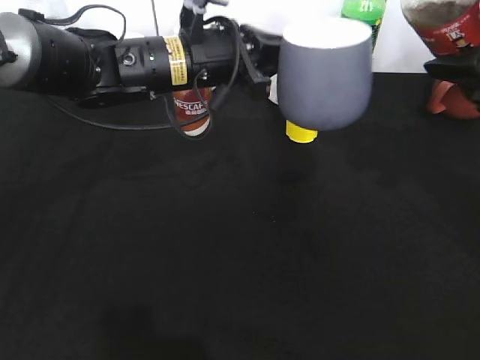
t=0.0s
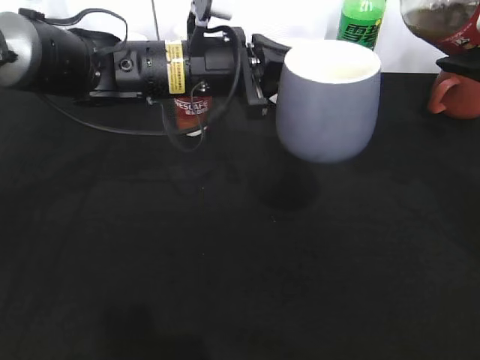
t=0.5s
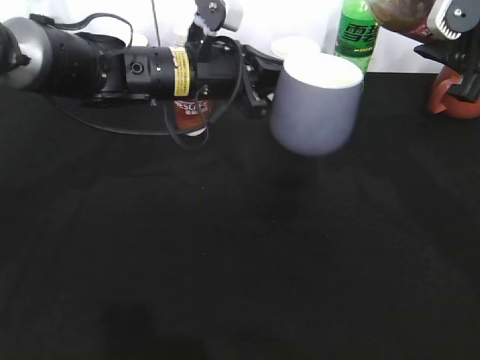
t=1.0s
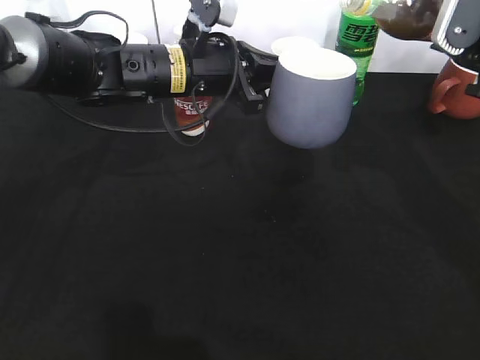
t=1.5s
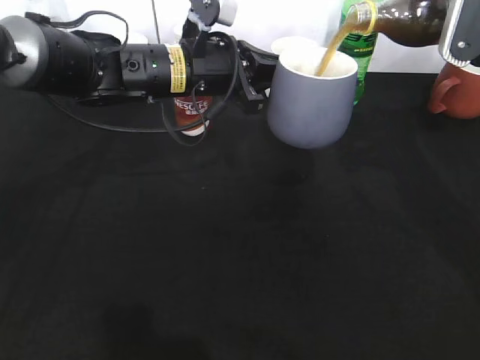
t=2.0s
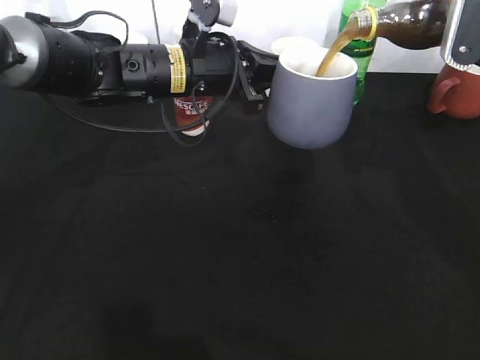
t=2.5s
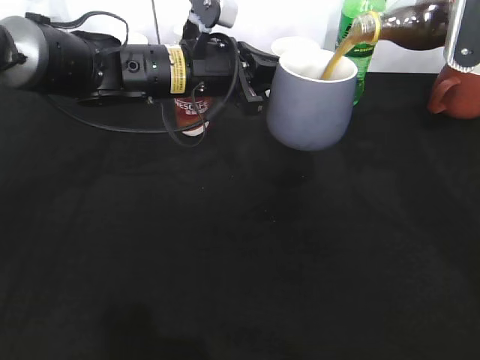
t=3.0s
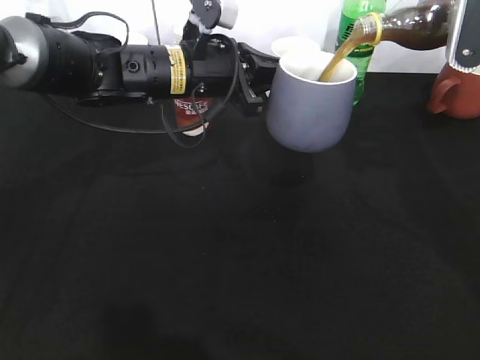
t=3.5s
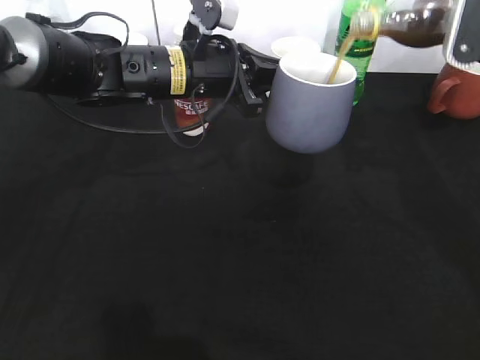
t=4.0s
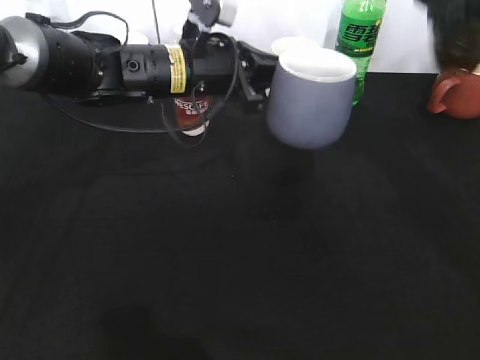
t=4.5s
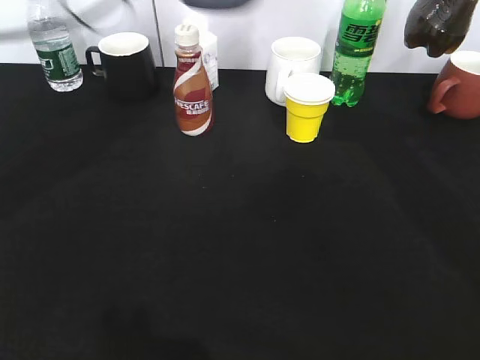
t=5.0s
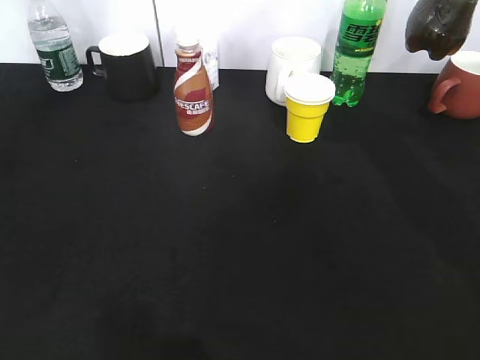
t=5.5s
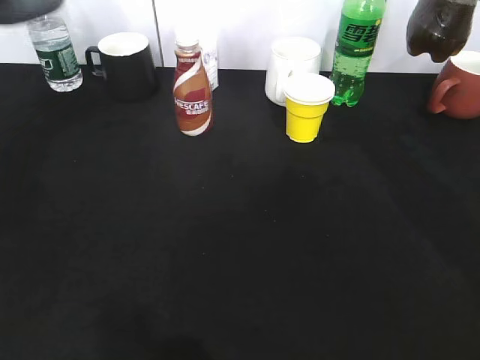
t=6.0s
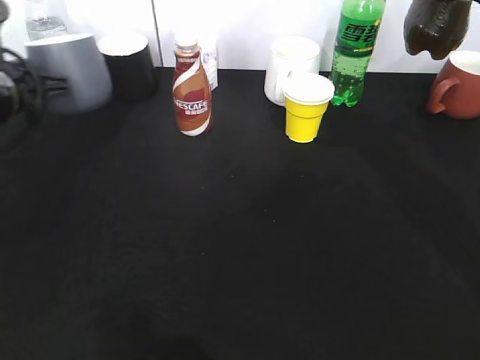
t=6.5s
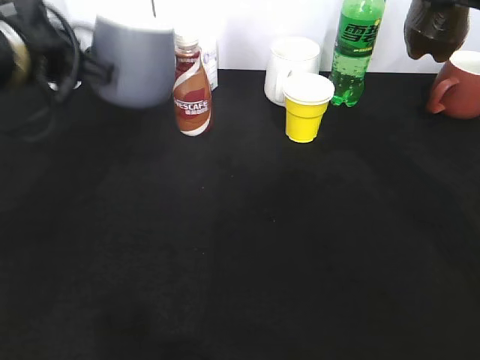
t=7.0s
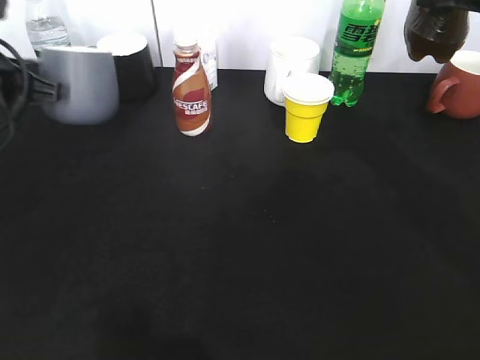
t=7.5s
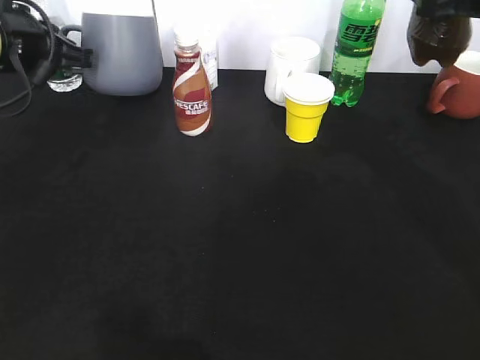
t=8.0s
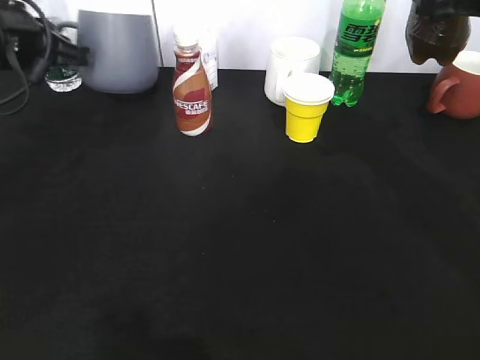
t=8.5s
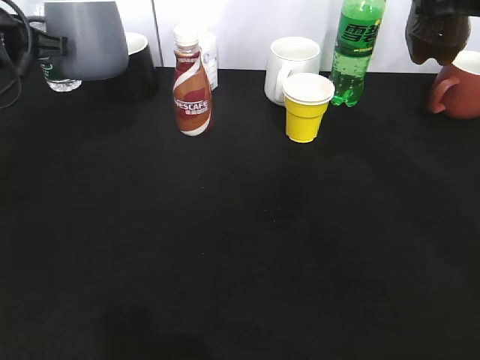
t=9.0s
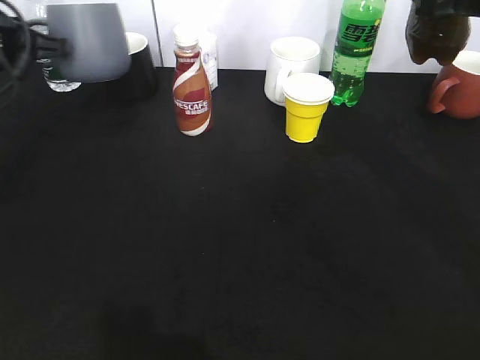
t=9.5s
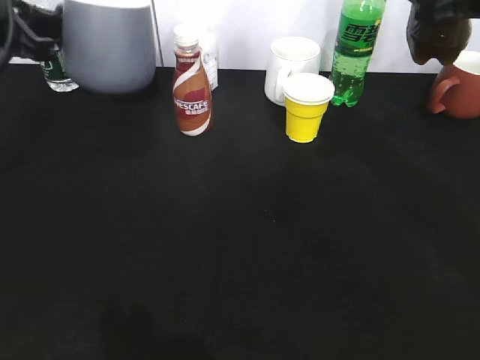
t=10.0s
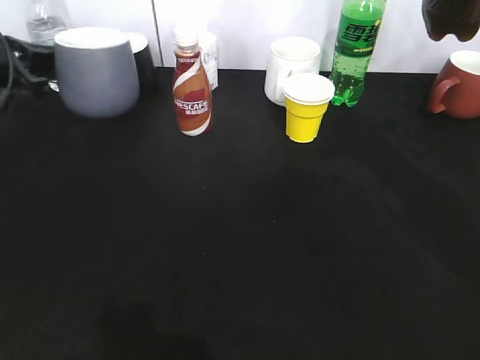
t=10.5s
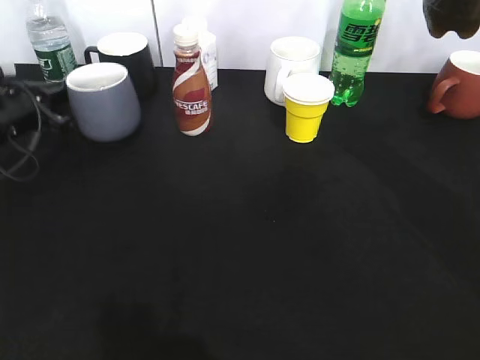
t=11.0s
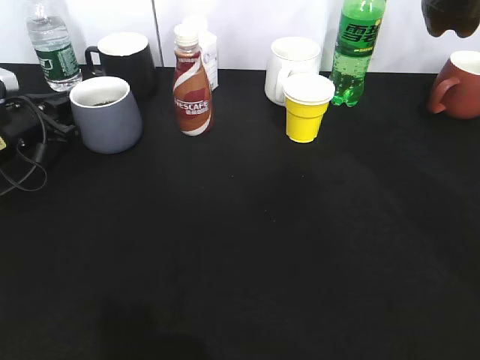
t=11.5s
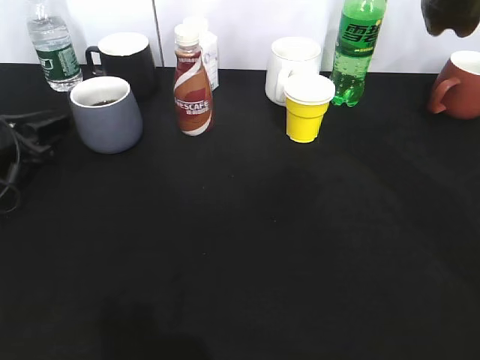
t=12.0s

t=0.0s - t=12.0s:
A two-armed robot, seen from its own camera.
Step, t=0.0s - t=3.5s: Pour the cola from bottle to cup with right gripper.
t=2.0s - t=4.0s: The grippers make only small movements.
t=4.0s - t=6.0s: The left gripper travels to the left, upward and backward by approximately 25 cm.
t=6.0s - t=8.0s: The left gripper moves up and down over approximately 10 cm, changing direction 2 times.
t=10.0s - t=12.0s: The left gripper is displaced downward by about 20 cm, and opens its fingers.

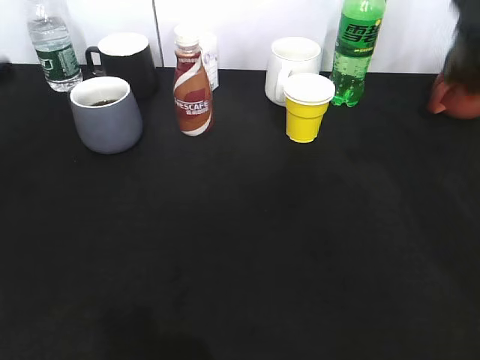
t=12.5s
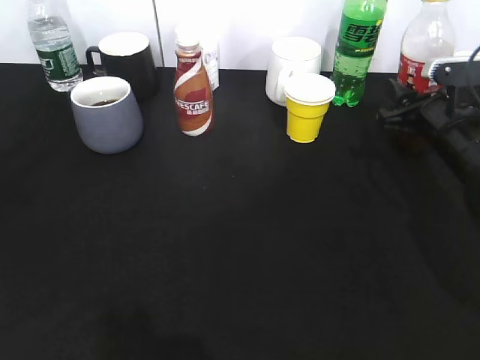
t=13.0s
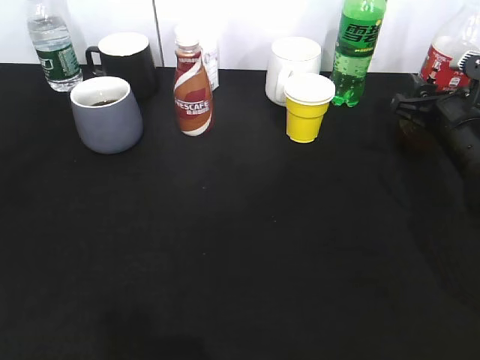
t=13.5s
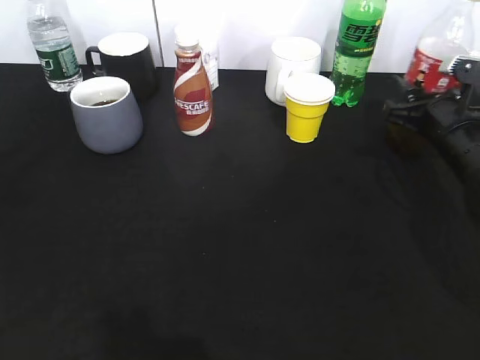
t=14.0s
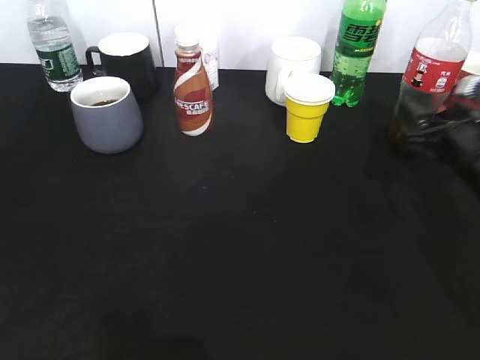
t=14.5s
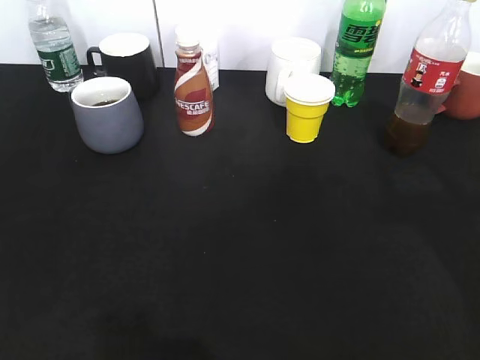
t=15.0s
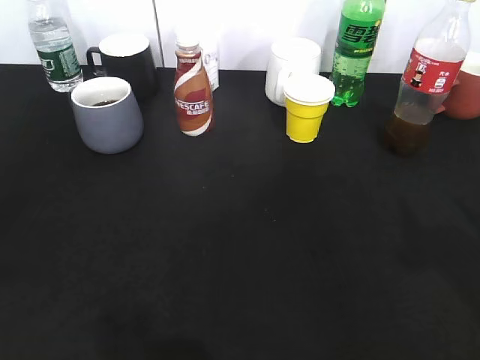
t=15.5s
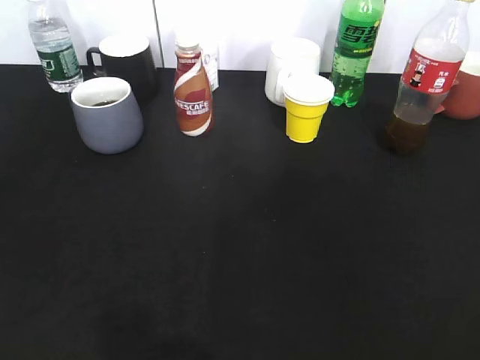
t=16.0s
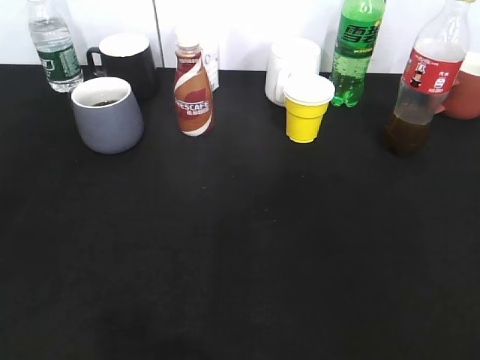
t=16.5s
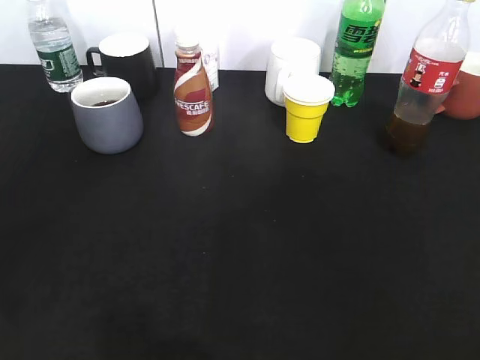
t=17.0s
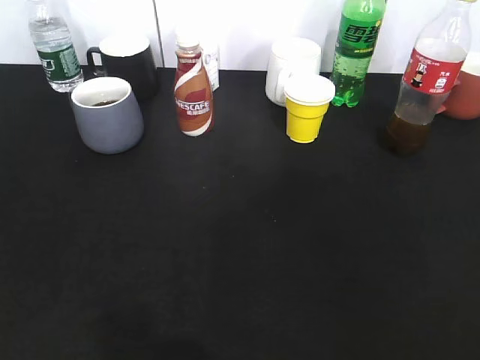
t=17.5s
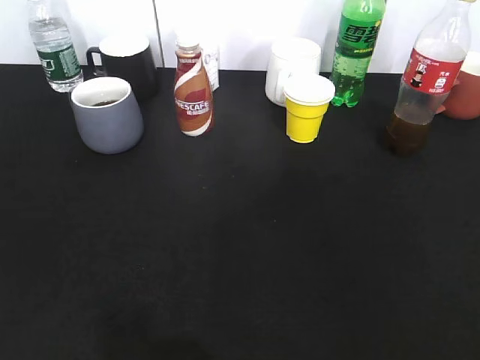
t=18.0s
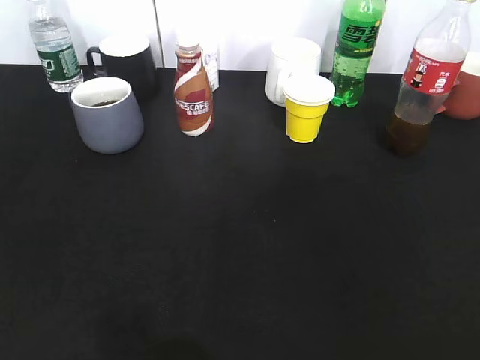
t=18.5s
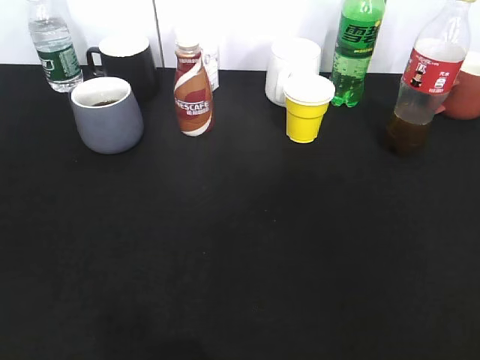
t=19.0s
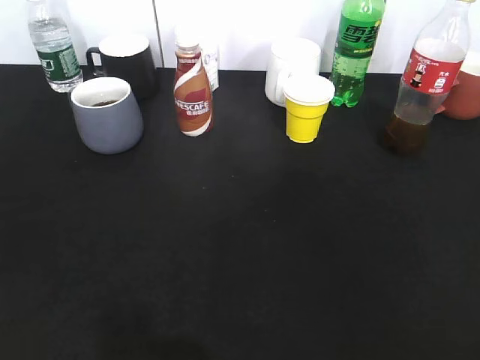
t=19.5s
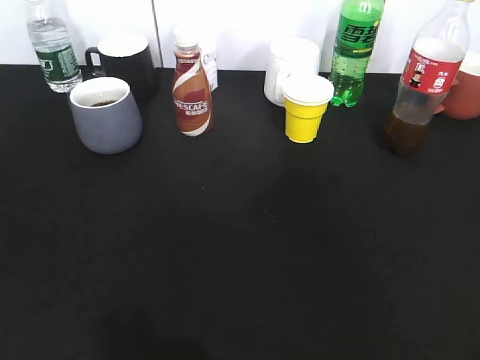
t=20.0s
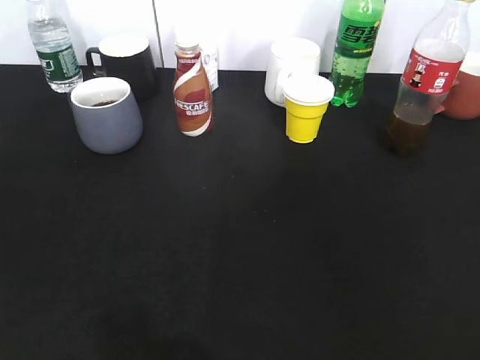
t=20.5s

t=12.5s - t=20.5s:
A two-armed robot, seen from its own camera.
Step, t=12.5s - t=15.0s: Place the cola bottle on the table with right gripper.
t=12.5s - t=14.5s: The right gripper goes roughly 15 cm downward, and opens.
t=14.5s - t=16.5s: The left gripper travels backward and upward by about 15 cm, and closes up. The right gripper goes some 35 cm backward and upward, and closes.
